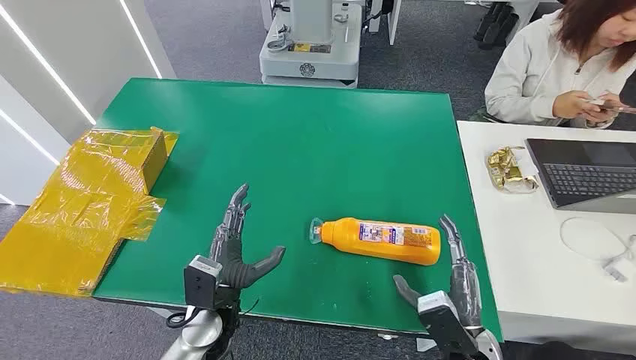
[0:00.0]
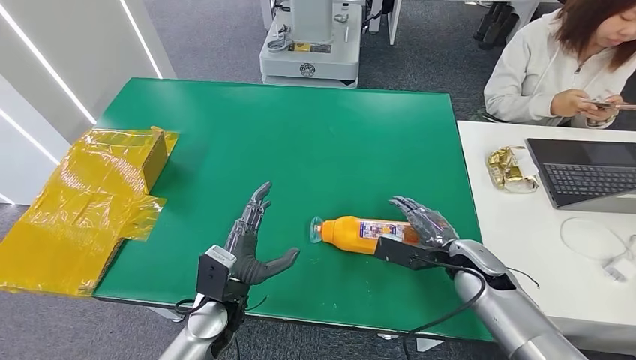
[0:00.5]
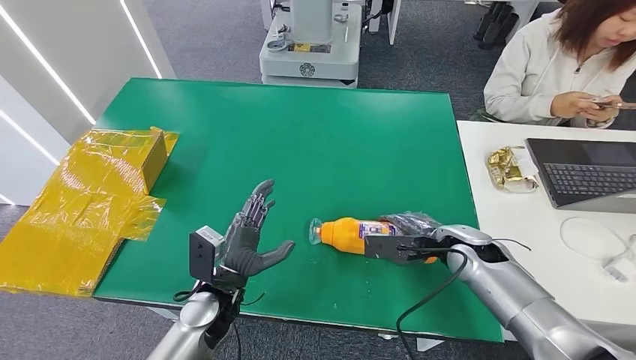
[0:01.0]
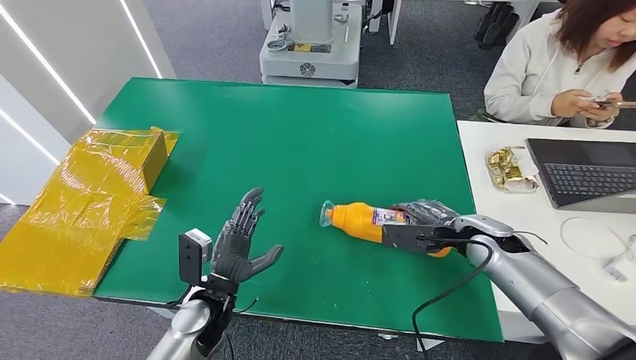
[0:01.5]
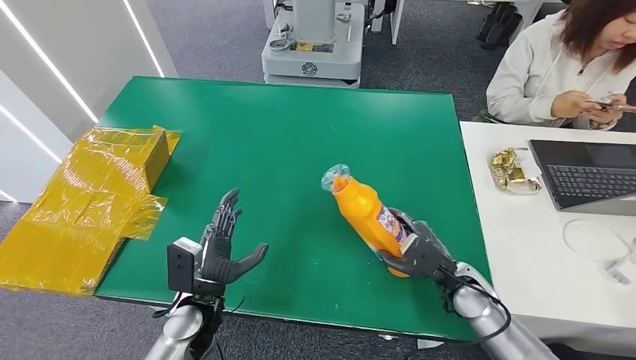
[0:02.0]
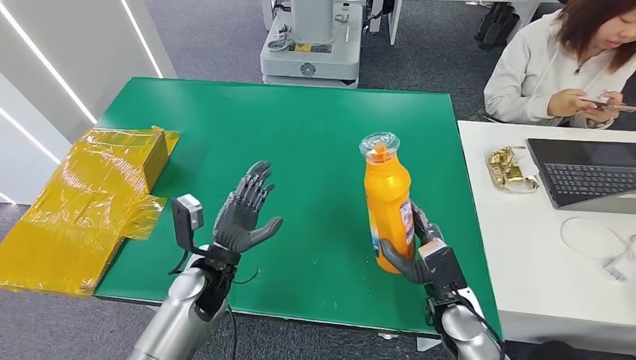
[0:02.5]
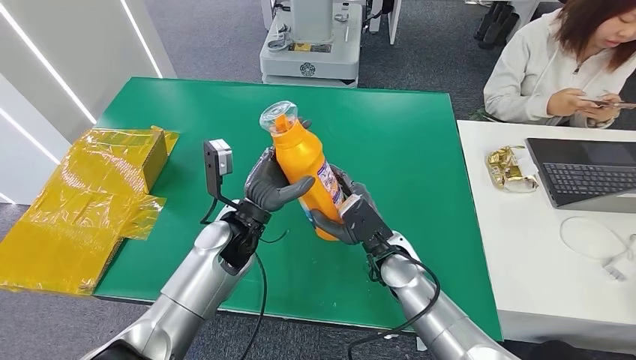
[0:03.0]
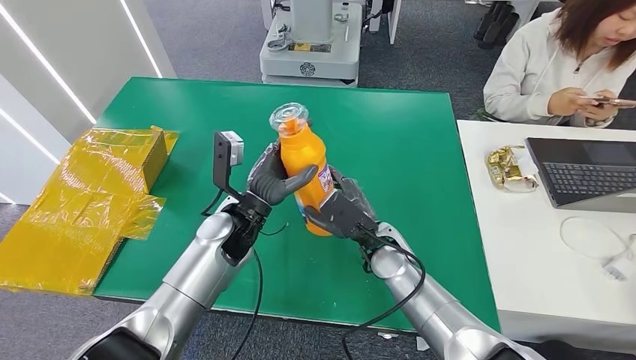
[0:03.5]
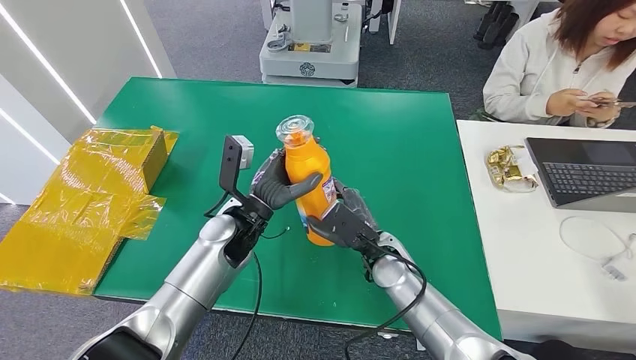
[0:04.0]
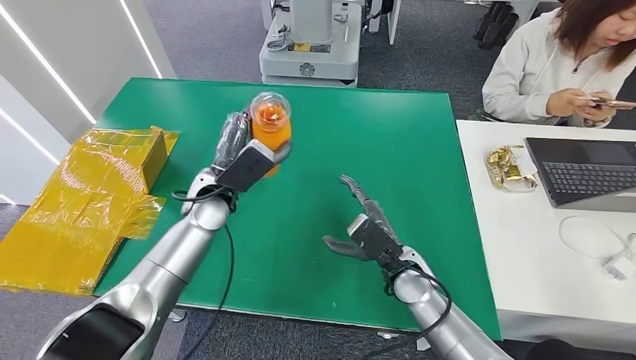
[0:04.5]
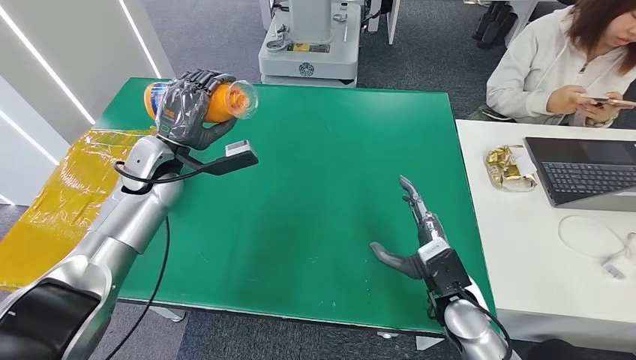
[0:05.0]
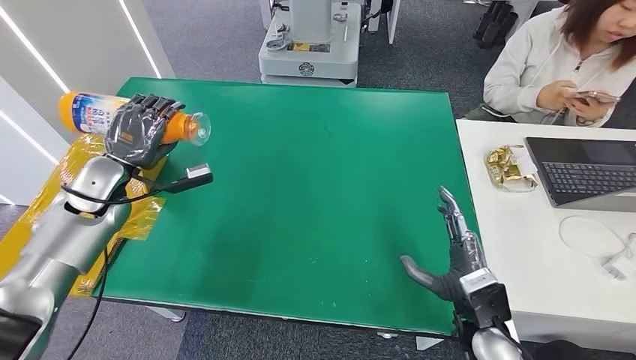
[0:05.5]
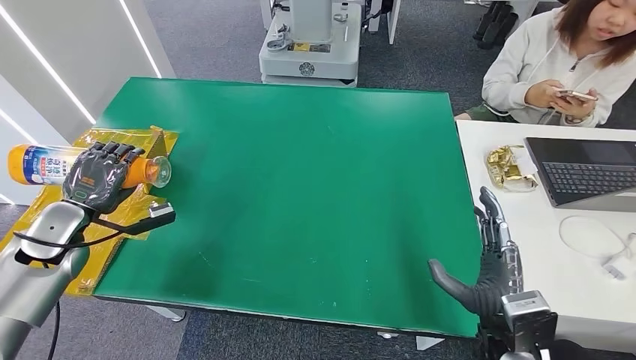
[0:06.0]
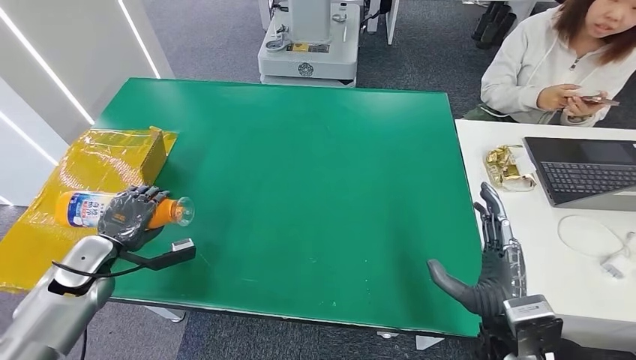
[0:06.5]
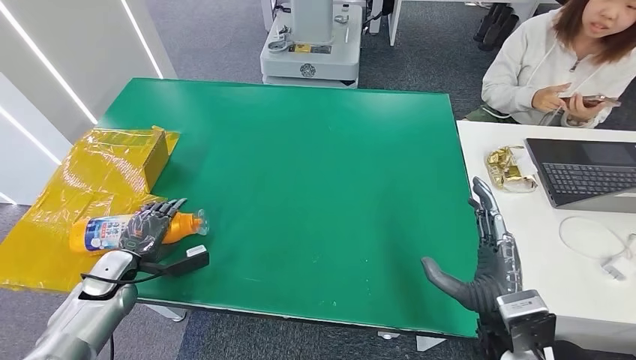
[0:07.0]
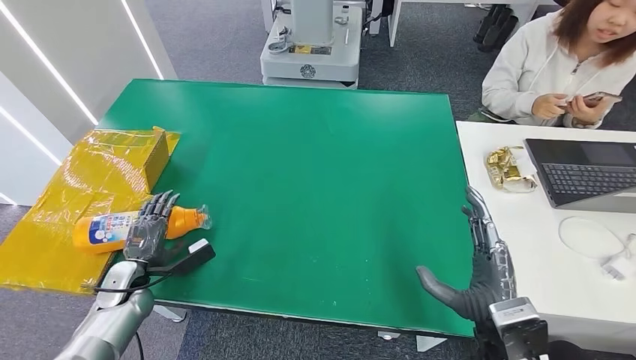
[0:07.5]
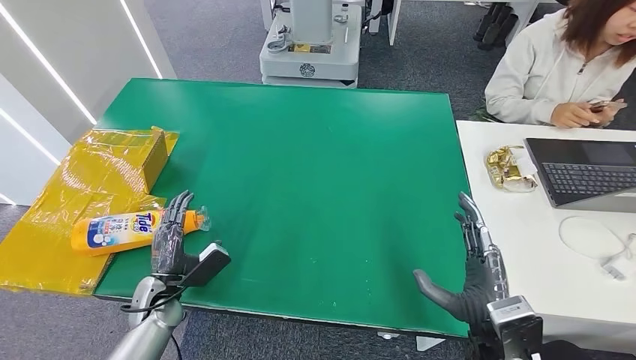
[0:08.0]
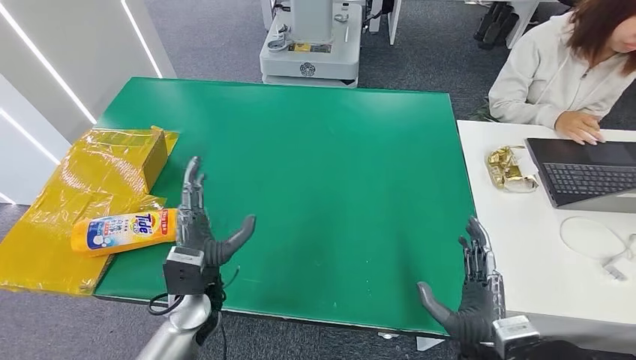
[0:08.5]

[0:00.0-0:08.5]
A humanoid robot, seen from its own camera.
Step, 0:00.0 to 0:03.0: Pick up the bottle from the table.
Step, 0:03.5 to 0:08.5: Turn the bottle to the front side.
